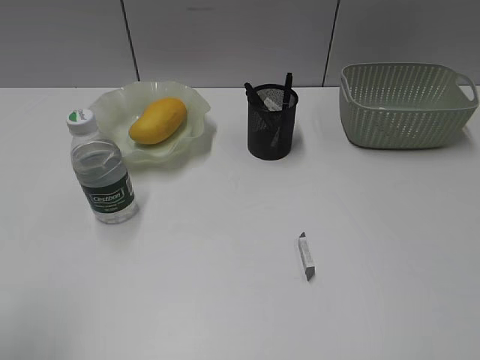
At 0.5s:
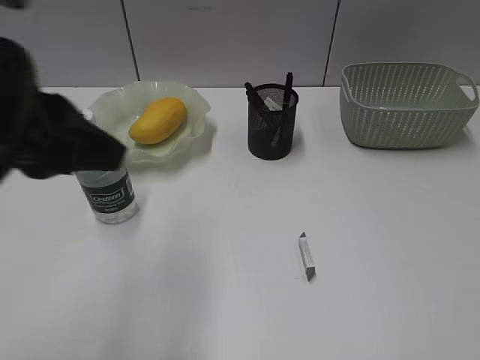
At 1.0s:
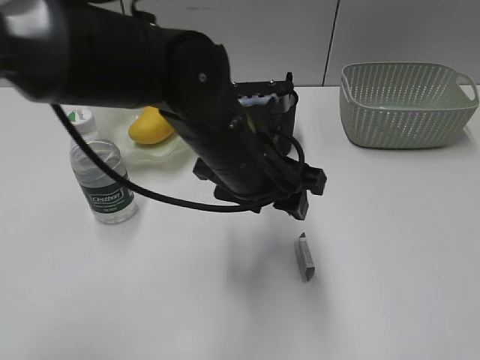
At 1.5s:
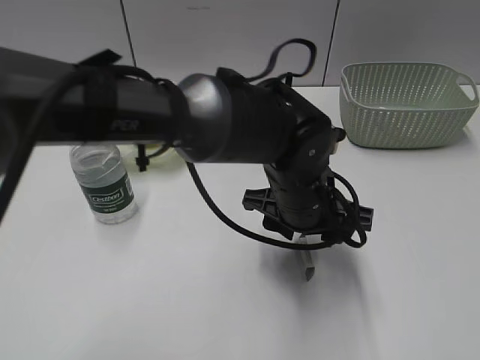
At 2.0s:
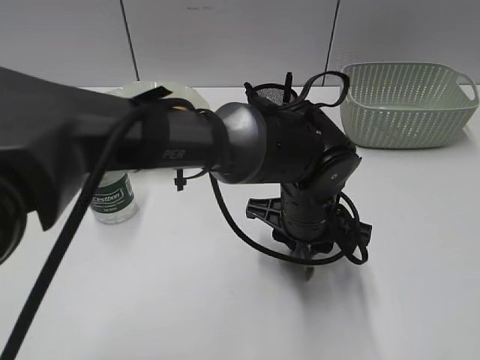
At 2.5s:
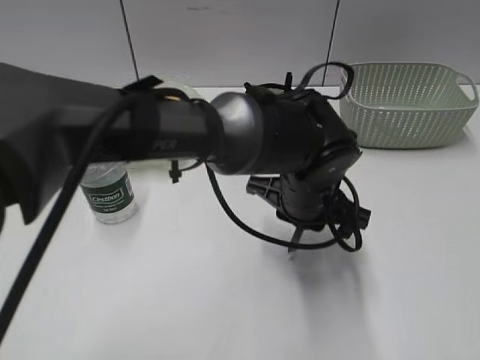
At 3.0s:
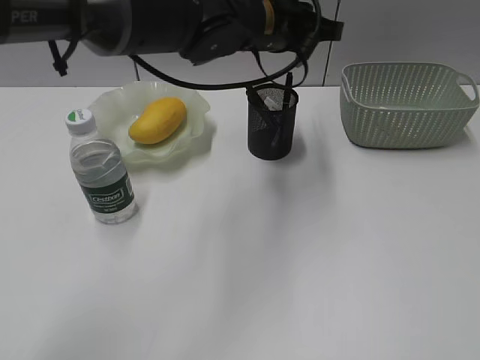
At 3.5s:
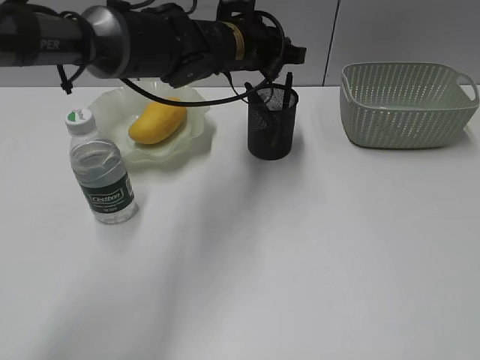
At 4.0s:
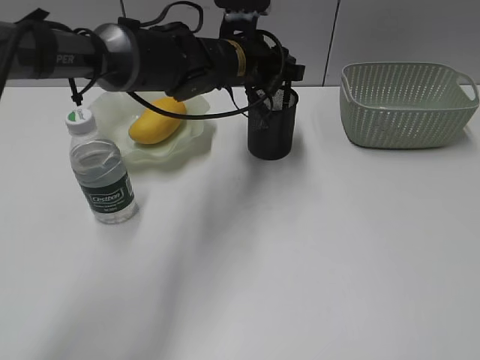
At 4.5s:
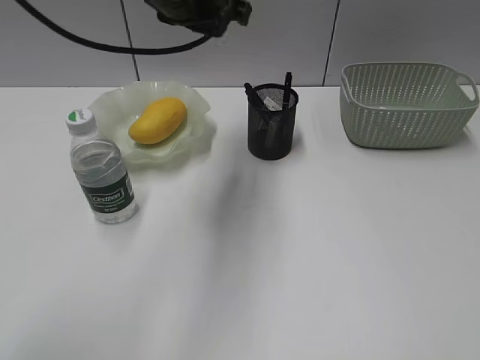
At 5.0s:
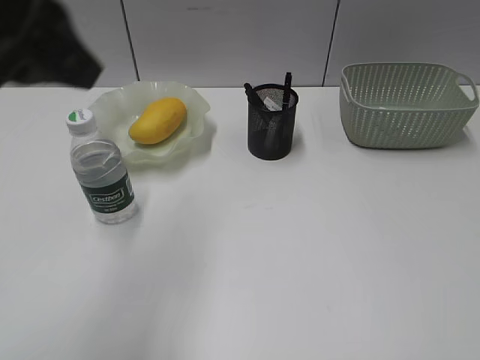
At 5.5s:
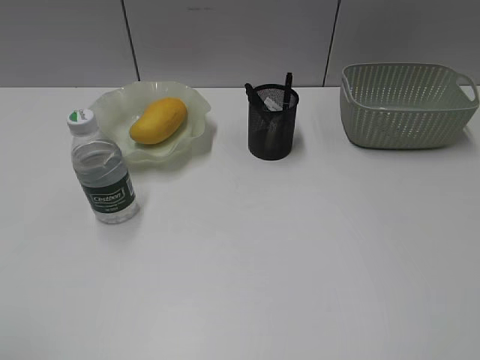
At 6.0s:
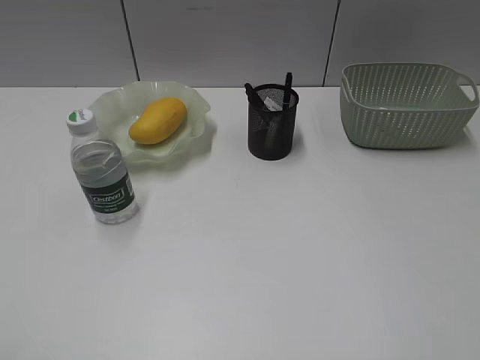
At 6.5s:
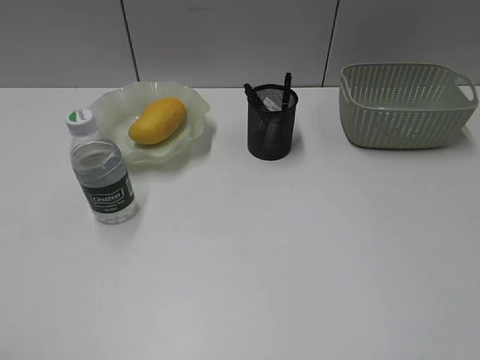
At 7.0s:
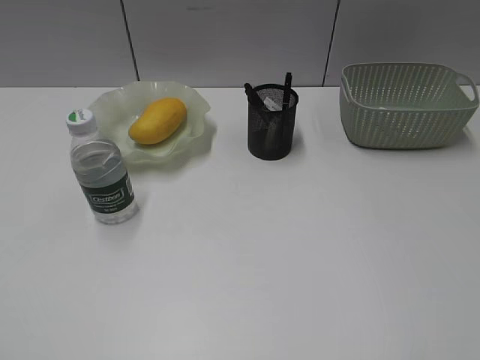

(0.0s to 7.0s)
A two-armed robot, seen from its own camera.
Step, 0.0s - 2.0s: Grasp the eraser with left gripper.
Step, 2.5s - 4.0s: Place the eraser in pen holder with left gripper.
0.0s - 2.0s: The left gripper is displaced to the right, forward and downward by roughly 50 cm, and opens and closes again.
2.0s - 3.5s: The left gripper moves forward, upward and to the left, some 20 cm.
3.5s - 5.0s: The left gripper shifts approximately 35 cm backward, to the left and upward.
5.0s - 7.0s: The left gripper goes about 25 cm backward and to the left.

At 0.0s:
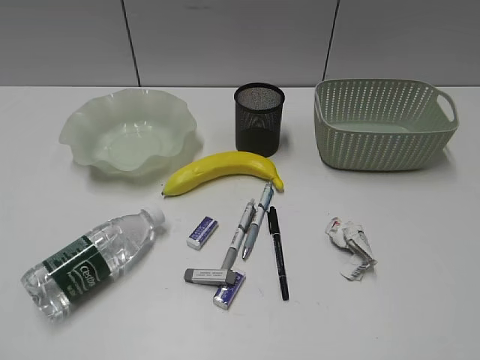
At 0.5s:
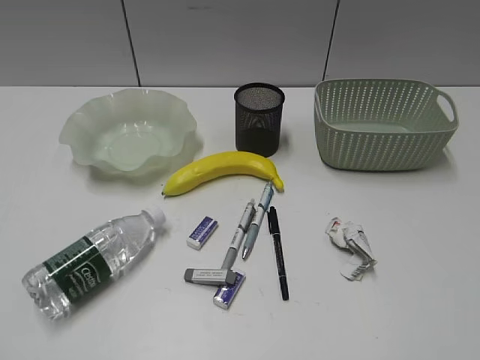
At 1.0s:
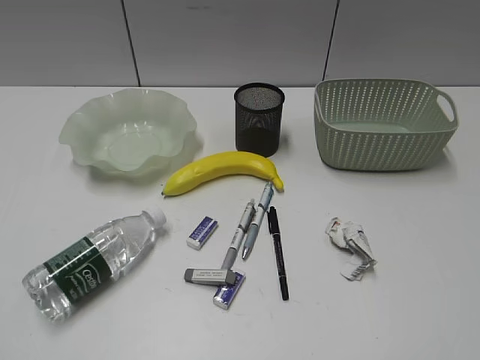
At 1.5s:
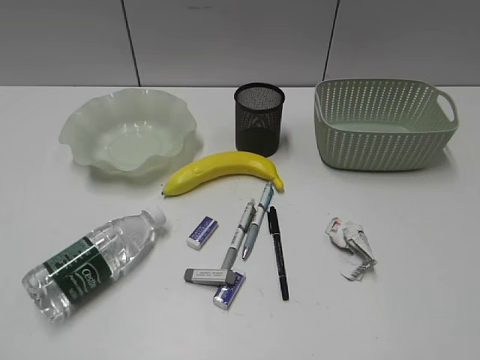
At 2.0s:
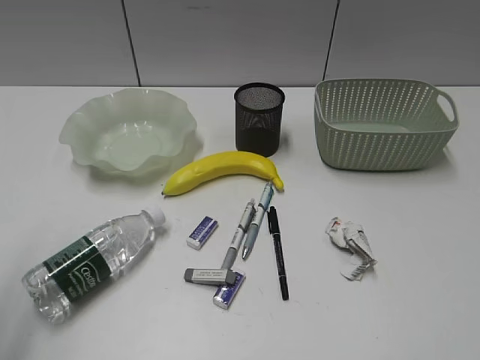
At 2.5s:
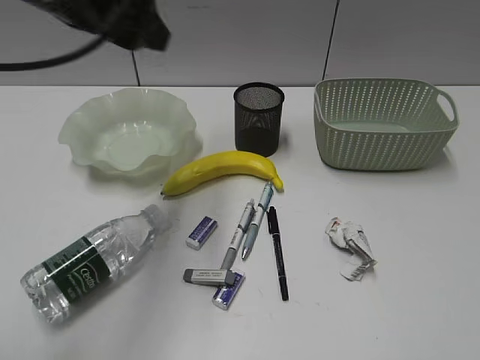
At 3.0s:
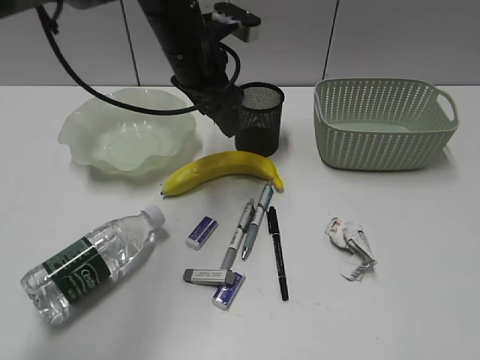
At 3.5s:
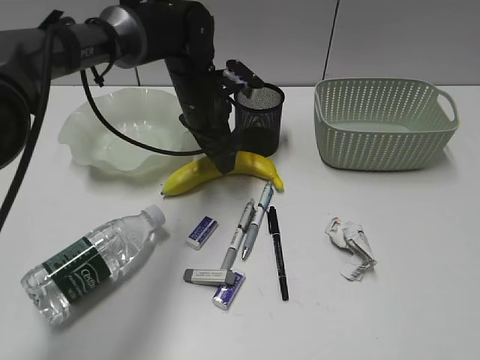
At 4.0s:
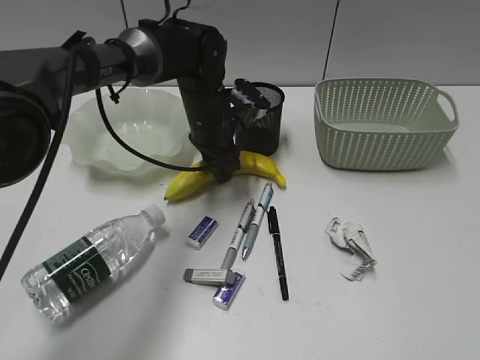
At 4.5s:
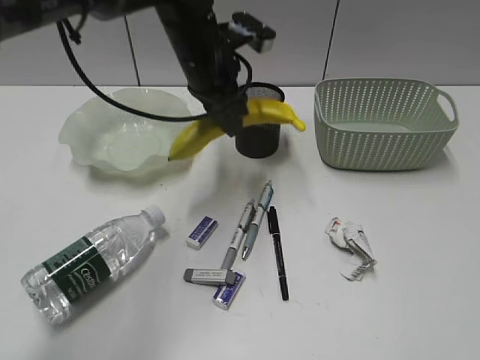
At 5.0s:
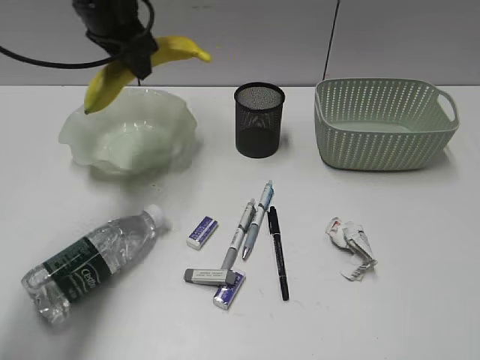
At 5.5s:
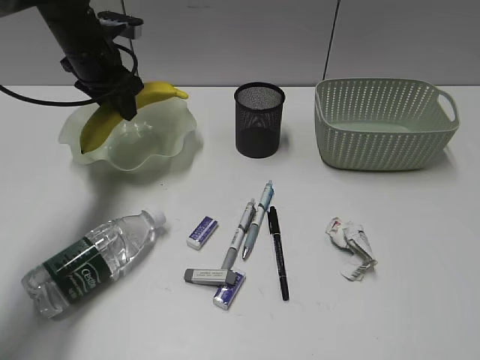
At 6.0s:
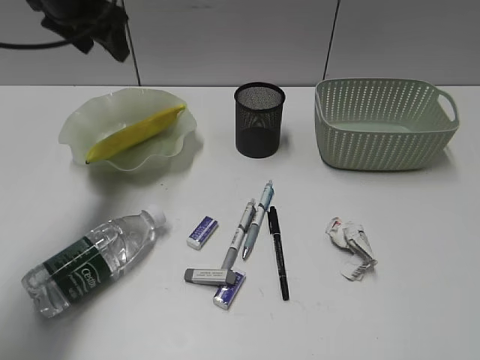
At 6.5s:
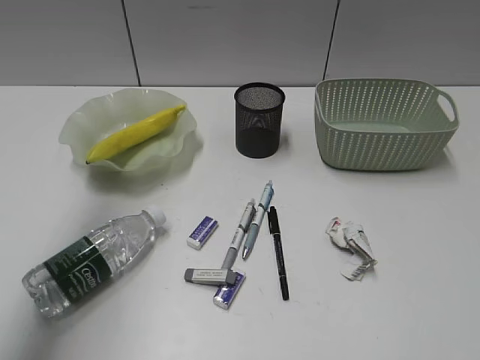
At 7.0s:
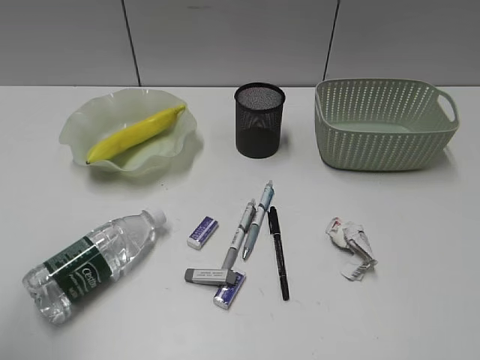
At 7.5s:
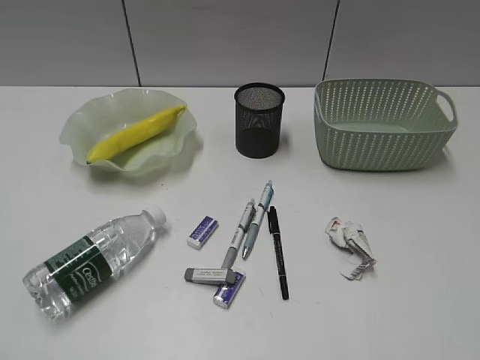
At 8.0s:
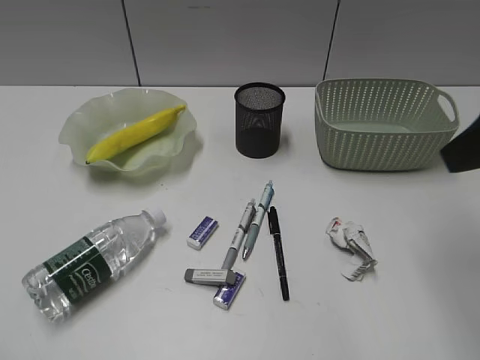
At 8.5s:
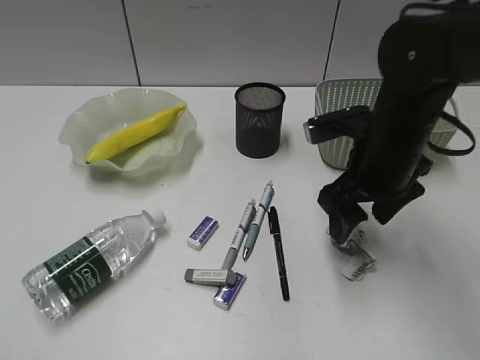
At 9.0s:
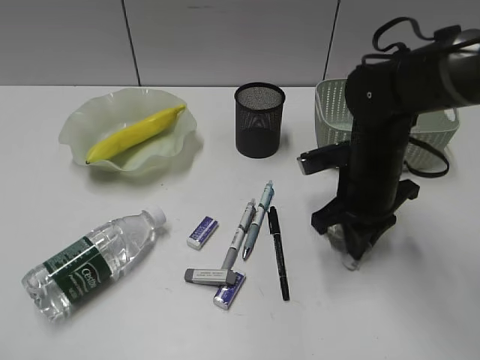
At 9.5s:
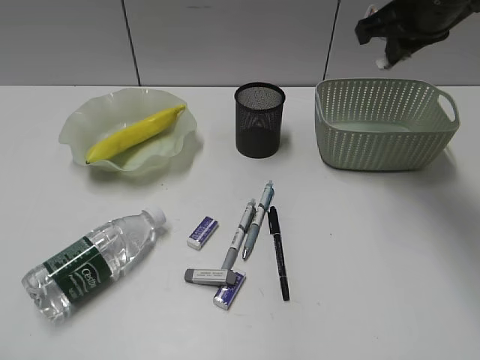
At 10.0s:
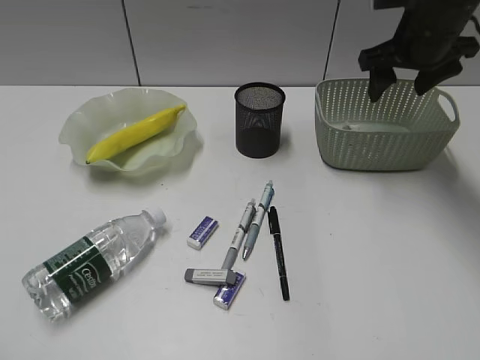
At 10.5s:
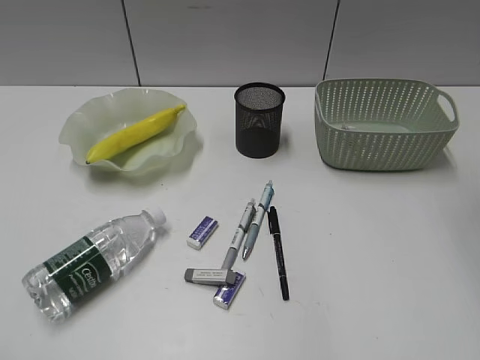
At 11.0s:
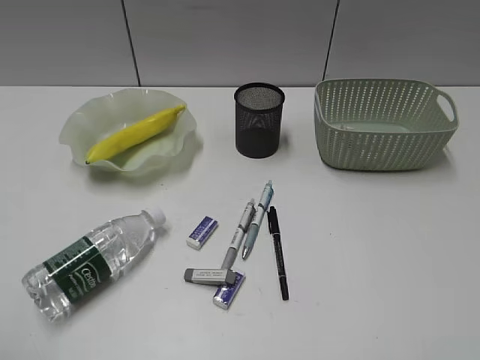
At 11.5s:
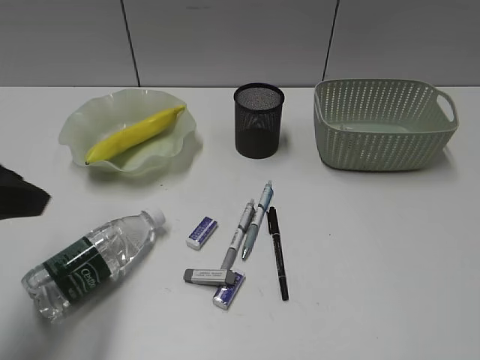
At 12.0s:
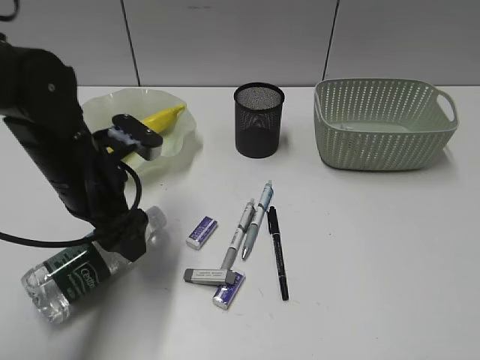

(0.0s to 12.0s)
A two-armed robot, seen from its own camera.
Step, 2.0s - 3.5s: Grasp the banana with left gripper.
Step, 4.0s - 5.5s: Place the banana in the plate with left gripper.
Step, 6.0s - 9.0s: Grasp the waste paper with right gripper.
Step, 9.5s - 10.0s: Place the waste paper in the basket with right gripper.
2.0s - 4.0s: The left gripper is displaced forward, to the right and downward by roughly 50 cm, and opens, then closes again.
4.0s - 6.0s: The left gripper travels to the left and upward by approximately 25 cm, and opens.
6.0s - 8.0s: The left gripper heads backward, covering about 50 cm, and closes its fingers; the right gripper heads forward, covering approximately 20 cm.
8.0s - 10.0s: The right gripper shifts approximately 25 cm forward, and opens.
10.0s - 12.0s: The right gripper moves backward, some 40 cm, and closes; the left gripper shifts roughly 35 cm forward, to the right and downward, and opens up.

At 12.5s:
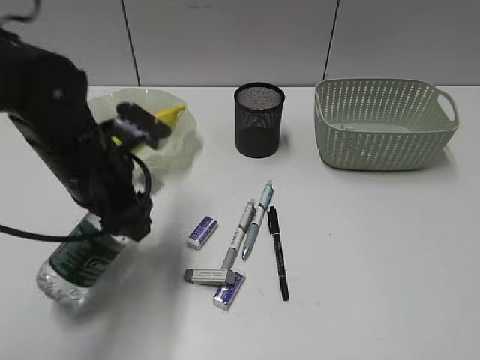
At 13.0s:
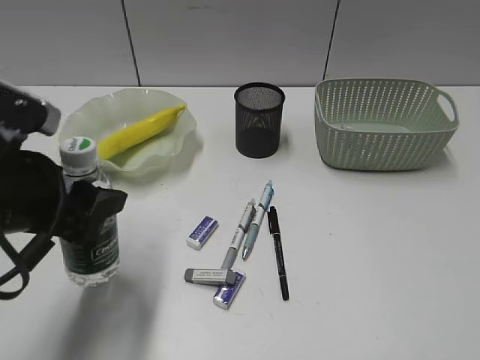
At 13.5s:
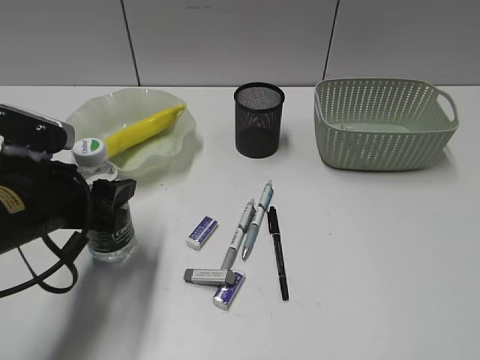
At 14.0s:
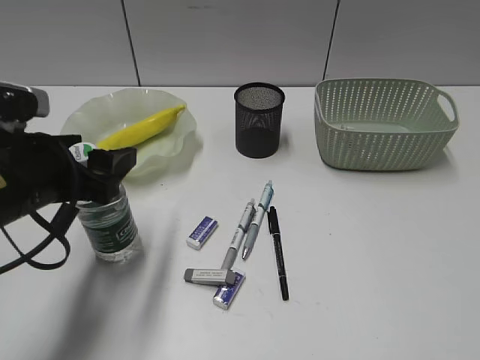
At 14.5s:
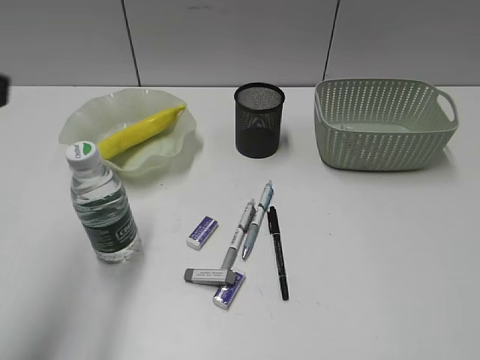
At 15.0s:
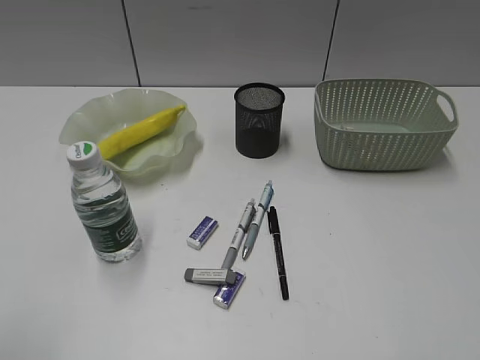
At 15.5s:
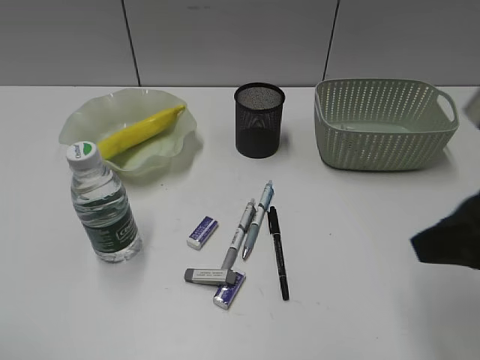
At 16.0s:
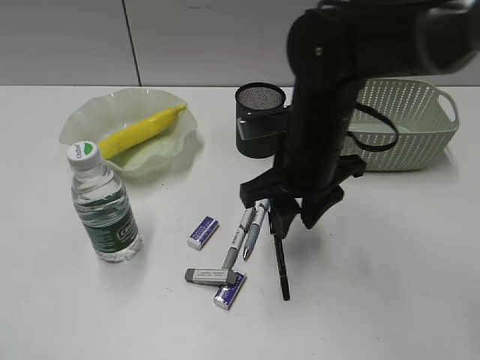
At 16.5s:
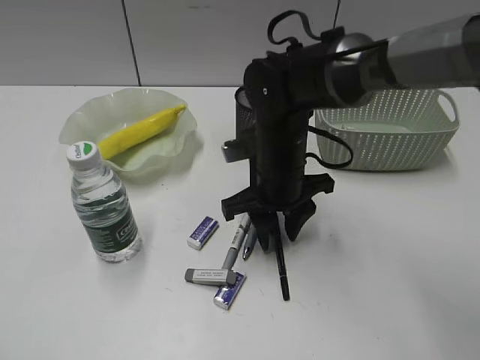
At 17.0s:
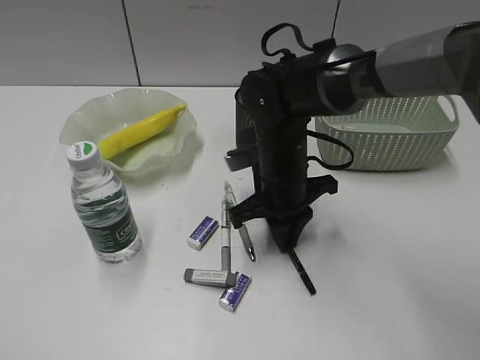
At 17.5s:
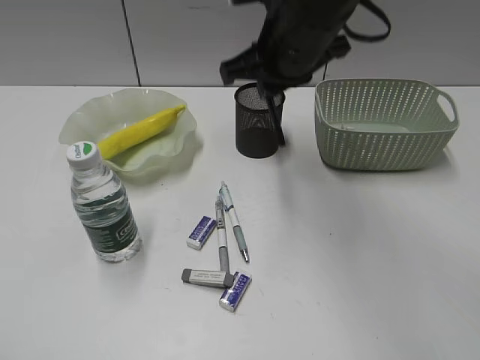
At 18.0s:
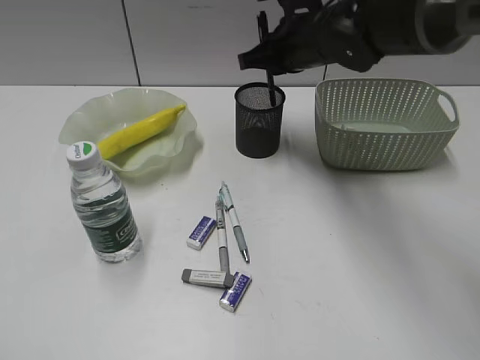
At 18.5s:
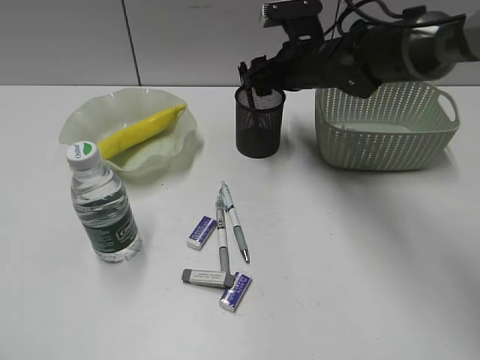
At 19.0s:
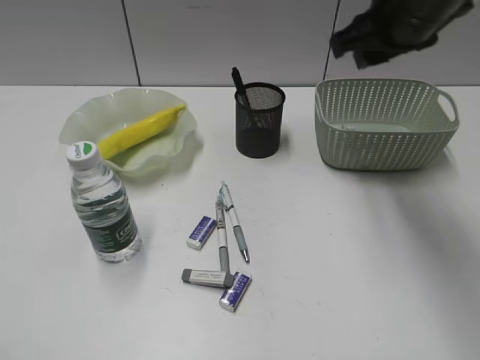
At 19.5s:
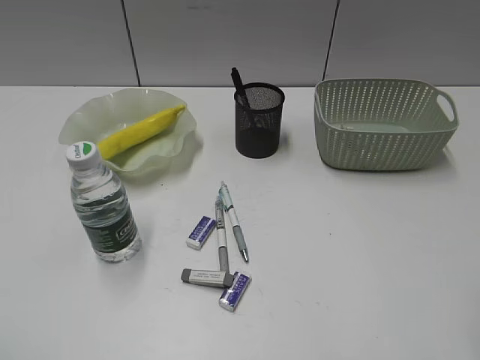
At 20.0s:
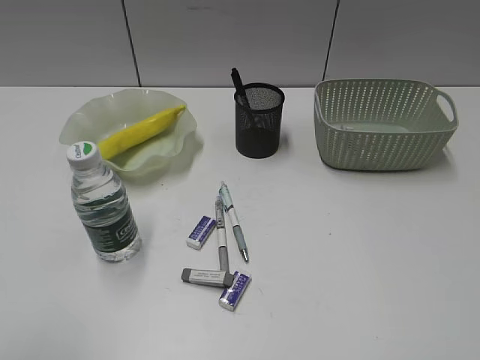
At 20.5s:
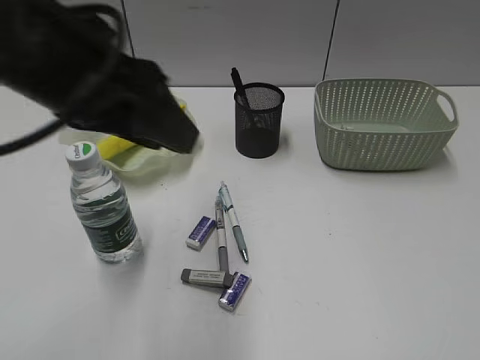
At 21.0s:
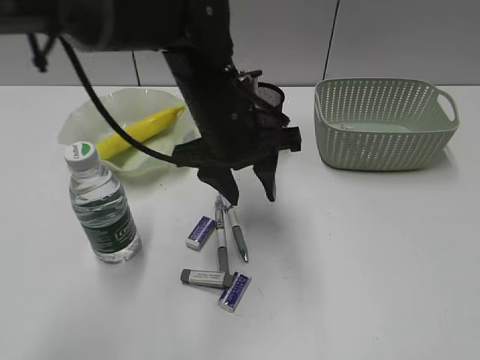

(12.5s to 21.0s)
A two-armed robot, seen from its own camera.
Step, 12.5s - 14.0s: Stand the bottle with left gripper.
Step, 14.5s - 17.0s: Grasp the black pen with right gripper.
Step, 17.5s - 18.5s: Place the black pen in pen holder with right gripper.
12.5s - 14.5s: The left gripper goes up and down, about 15 cm each way, reversing 2 times.
14.5s - 16.5s: The right gripper is displaced forward, to the left and downward by approximately 50 cm; the left gripper is displaced backward by some 15 cm.
16.5s - 19.0s: The right gripper swings up and down, roughly 20 cm each way, with 2 reversals, and closes, then opens again.
19.0s - 21.0s: The left gripper shifts roughly 40 cm forward and to the right; the right gripper travels backward and to the right by approximately 40 cm.
